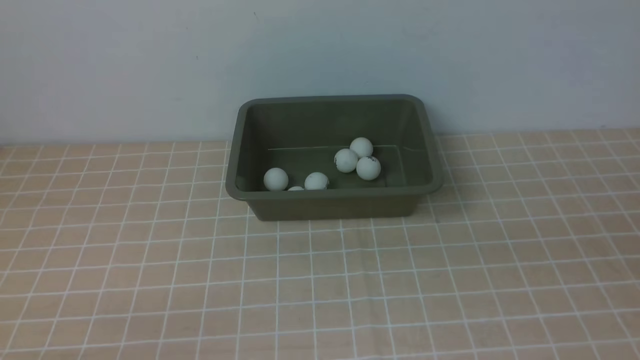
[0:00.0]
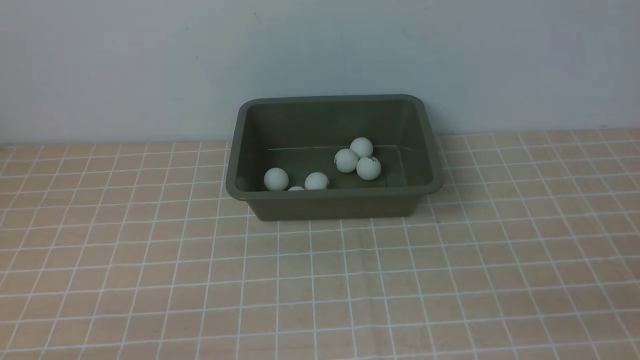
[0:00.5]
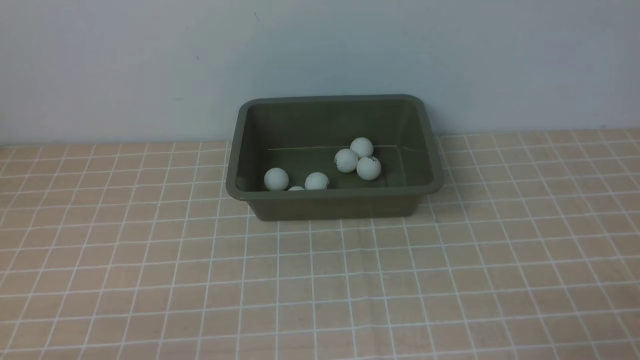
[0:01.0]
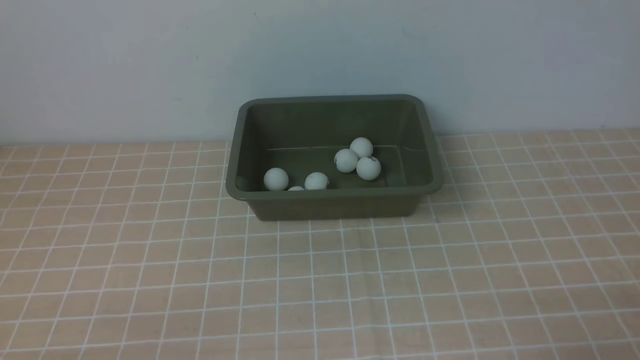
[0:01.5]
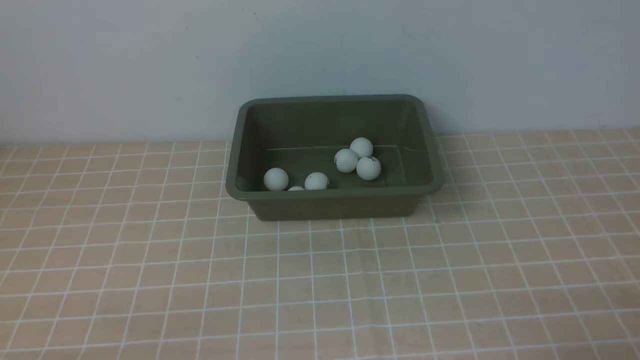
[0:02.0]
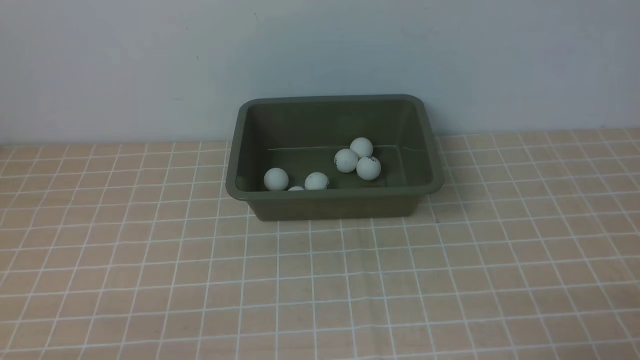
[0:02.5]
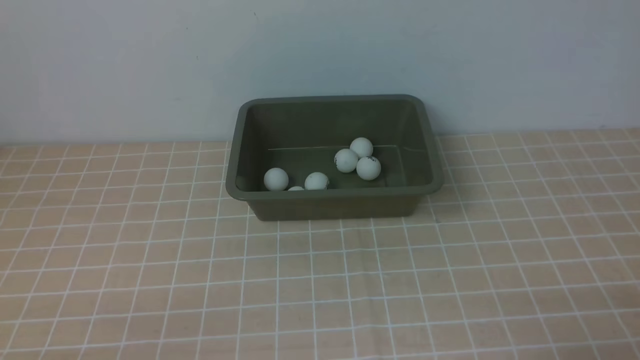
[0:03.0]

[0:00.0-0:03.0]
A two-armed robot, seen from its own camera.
0:01.5 to 0:03.0: Both grippers stay about where they are.
